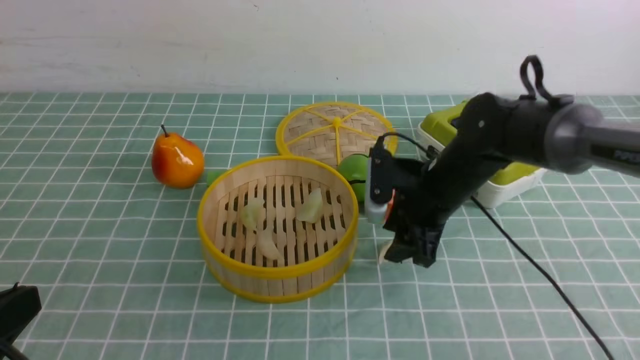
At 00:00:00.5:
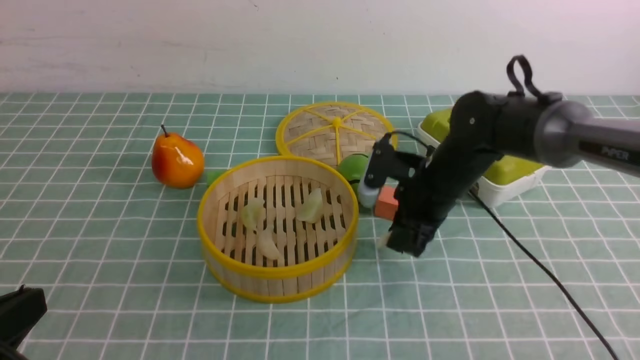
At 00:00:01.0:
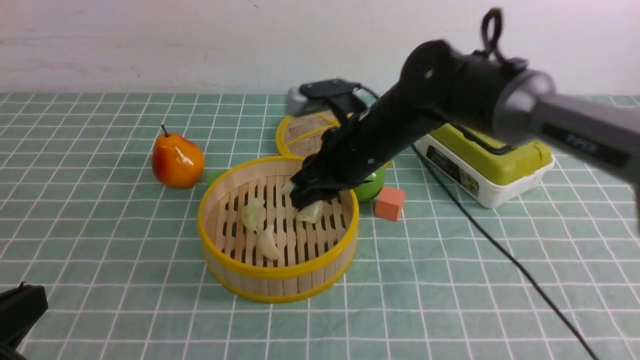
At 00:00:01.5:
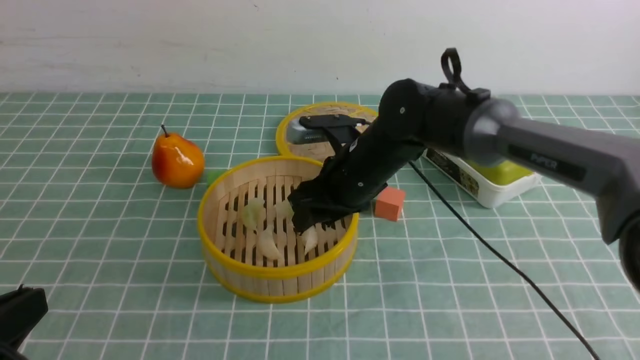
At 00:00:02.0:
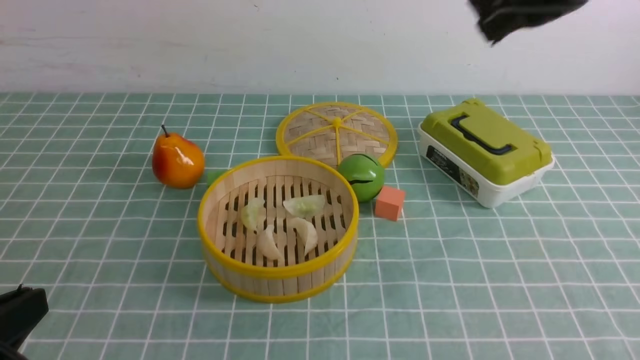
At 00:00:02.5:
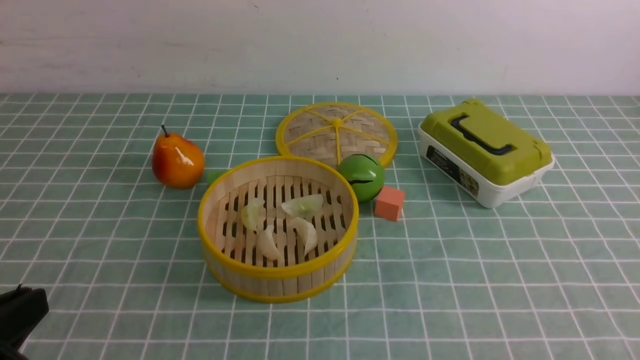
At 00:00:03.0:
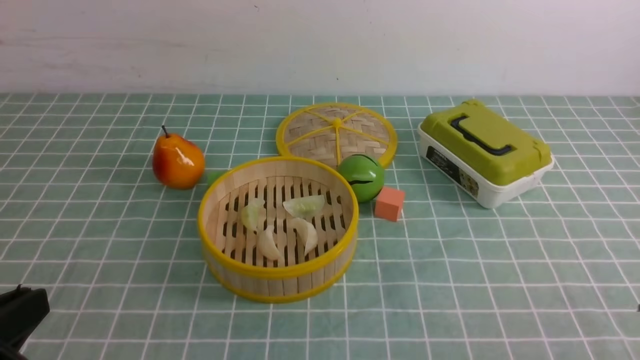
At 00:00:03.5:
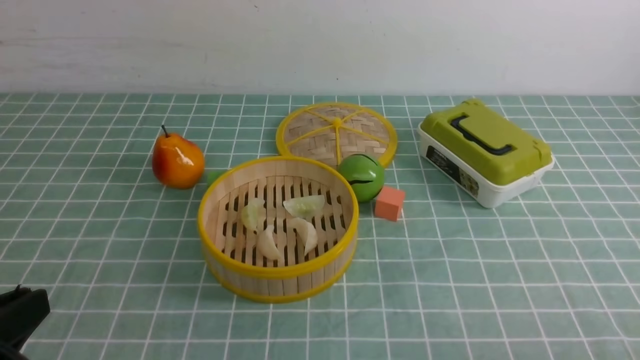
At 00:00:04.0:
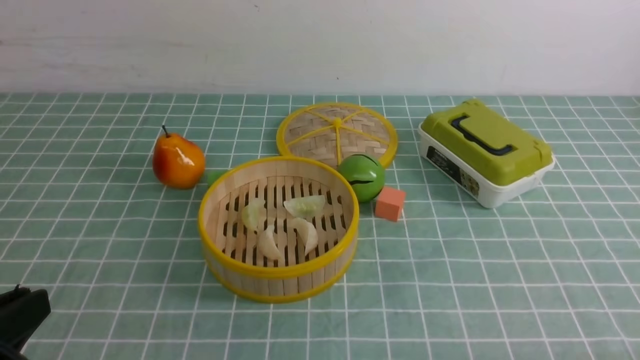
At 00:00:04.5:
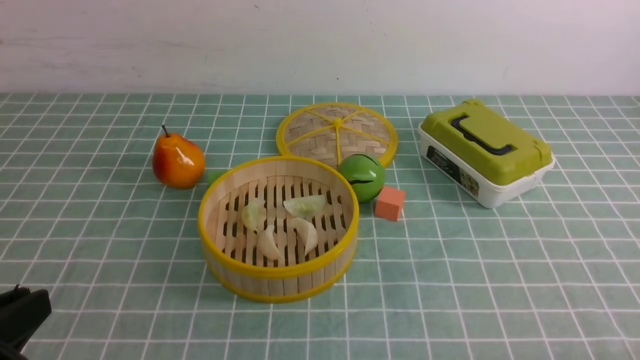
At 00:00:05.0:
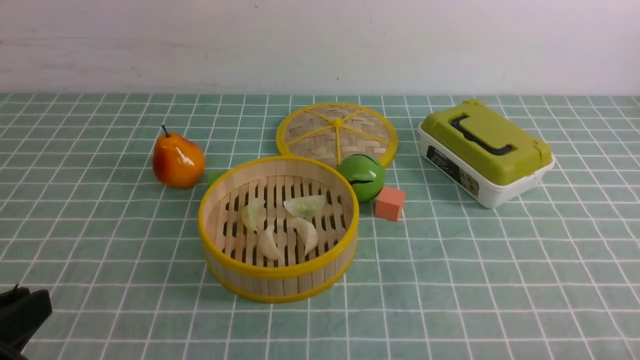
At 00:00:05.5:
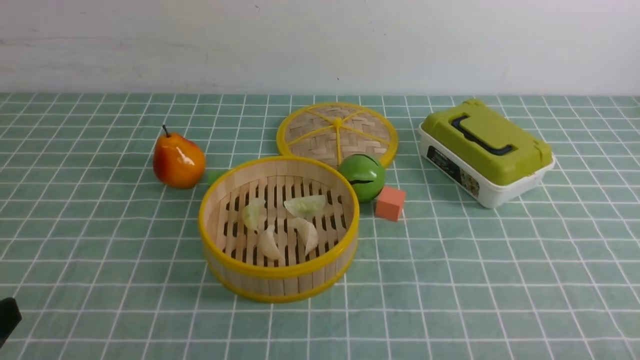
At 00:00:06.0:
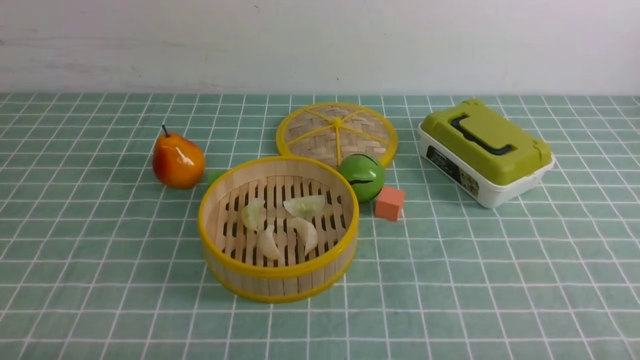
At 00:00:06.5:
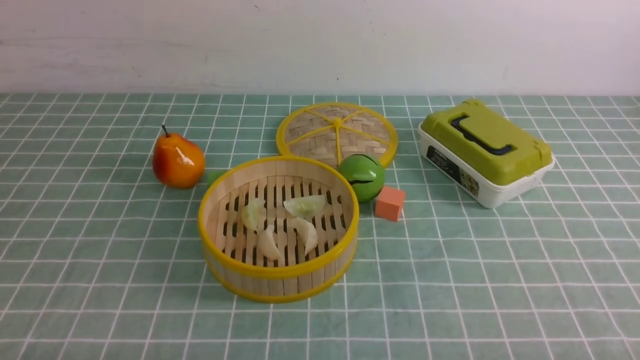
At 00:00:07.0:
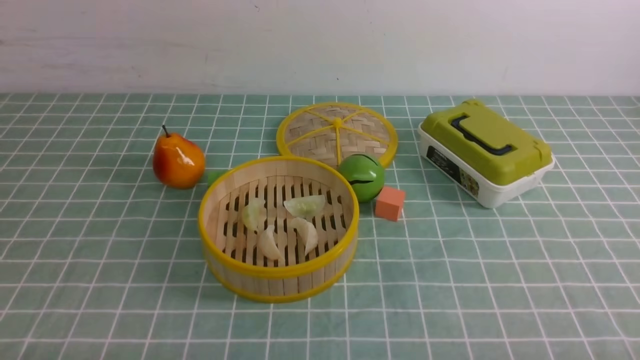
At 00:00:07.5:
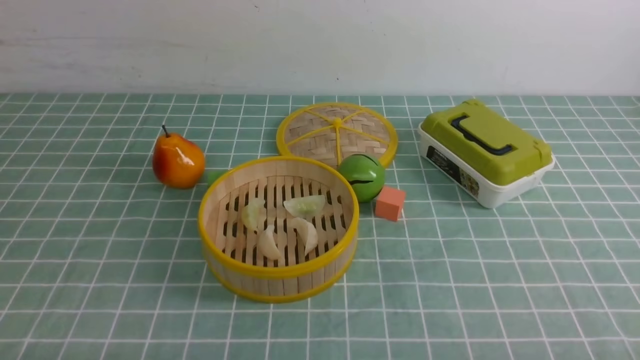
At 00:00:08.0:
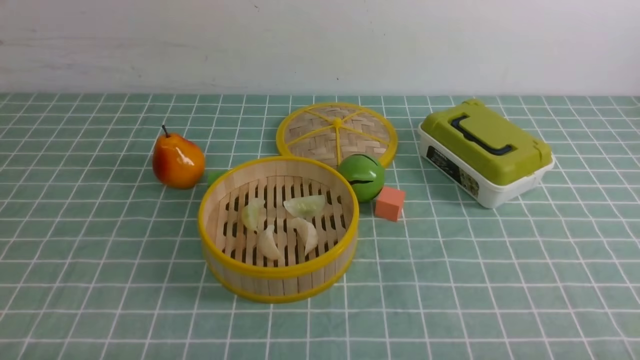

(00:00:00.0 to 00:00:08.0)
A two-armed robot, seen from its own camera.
Task of the whole recording: put the dumplings into the steamer on the table with the blue tablecloth.
Step, 00:00:00.5 - 00:00:01.5: use the right arm to put the dumpling into the steamer.
00:00:00.0 - 00:00:02.0: The right gripper travels upward by approximately 20 cm, and closes its fingers.
00:00:02.0 - 00:00:04.0: The right gripper is displaced backward, downward and to the right by roughly 40 cm.
00:00:04.0 - 00:00:06.0: The left gripper travels downward by about 10 cm.

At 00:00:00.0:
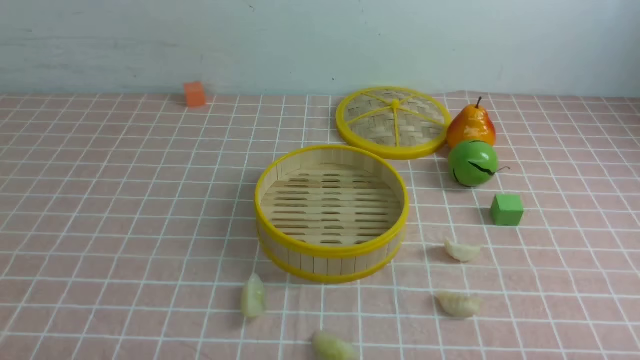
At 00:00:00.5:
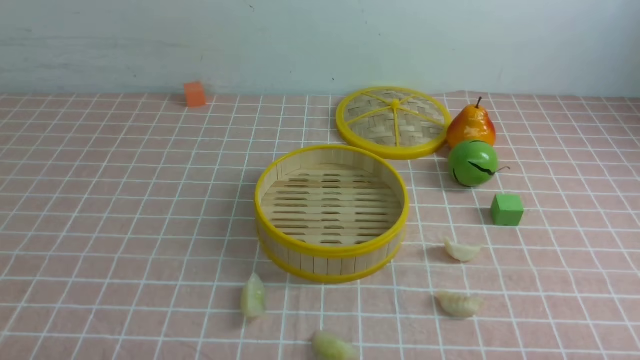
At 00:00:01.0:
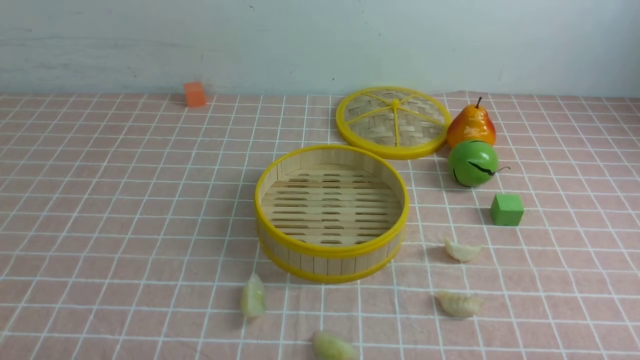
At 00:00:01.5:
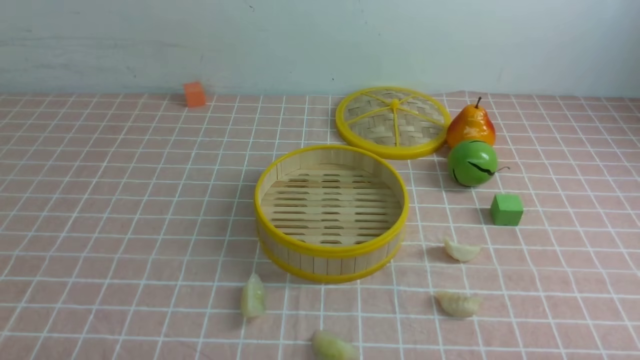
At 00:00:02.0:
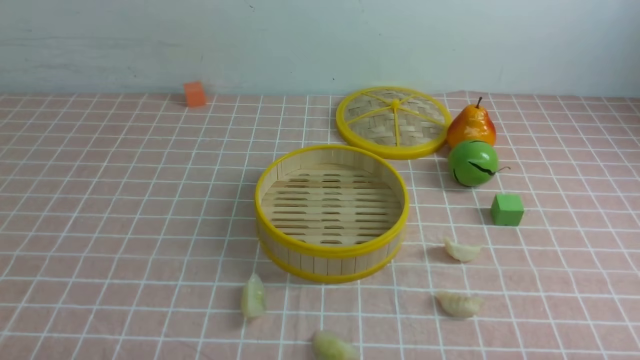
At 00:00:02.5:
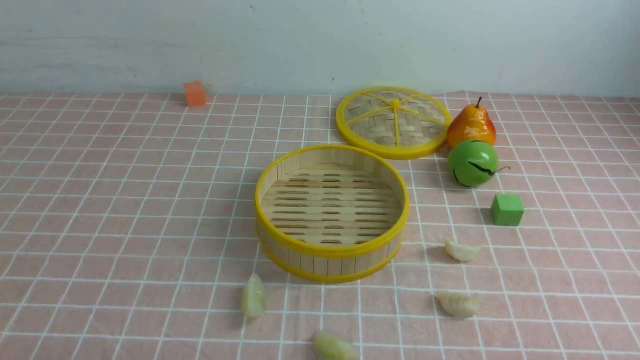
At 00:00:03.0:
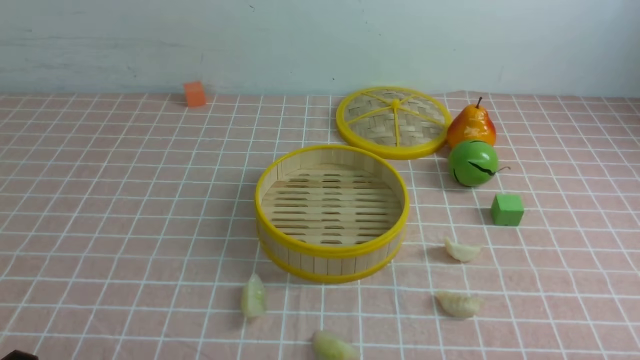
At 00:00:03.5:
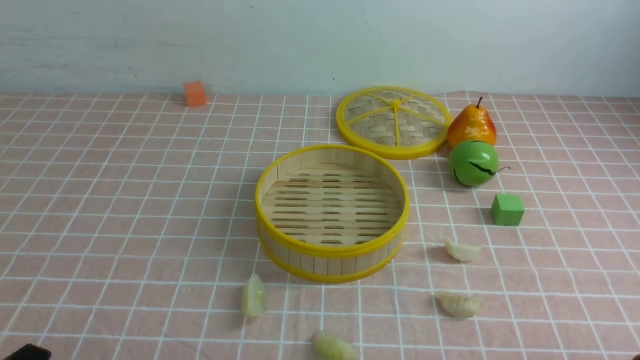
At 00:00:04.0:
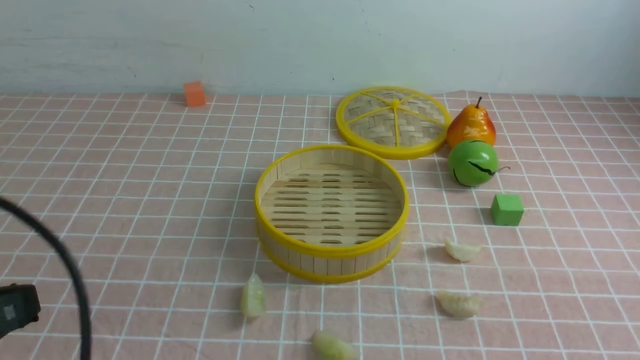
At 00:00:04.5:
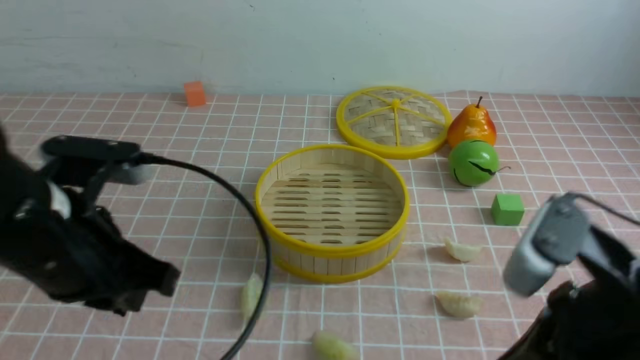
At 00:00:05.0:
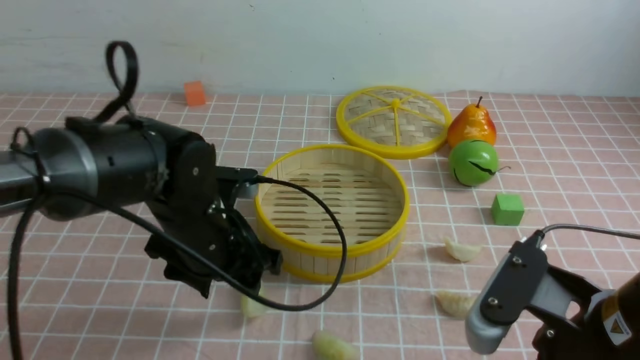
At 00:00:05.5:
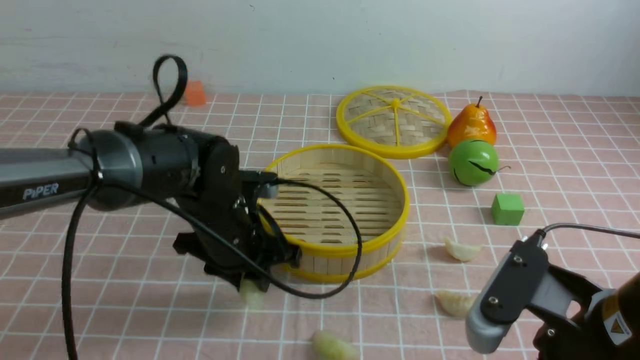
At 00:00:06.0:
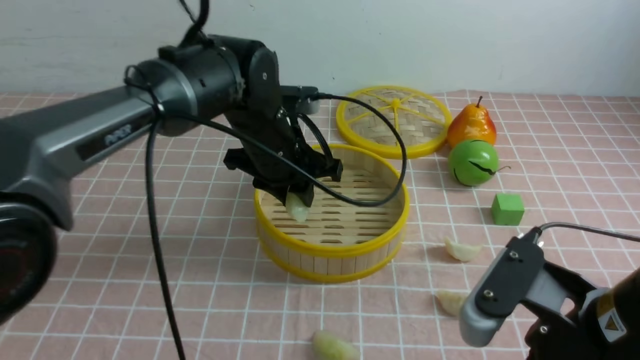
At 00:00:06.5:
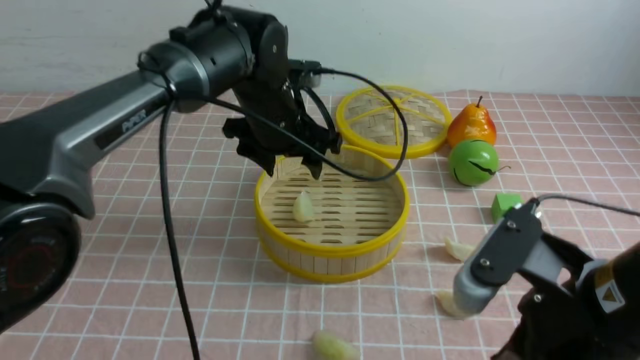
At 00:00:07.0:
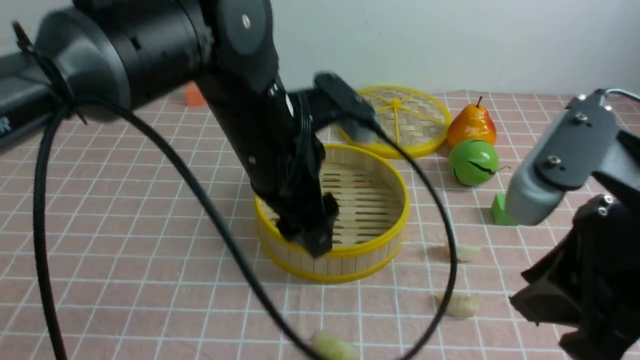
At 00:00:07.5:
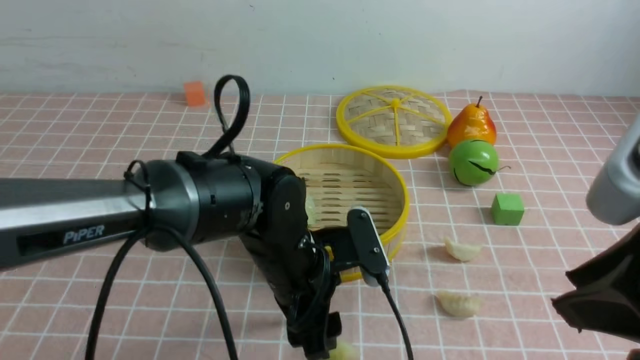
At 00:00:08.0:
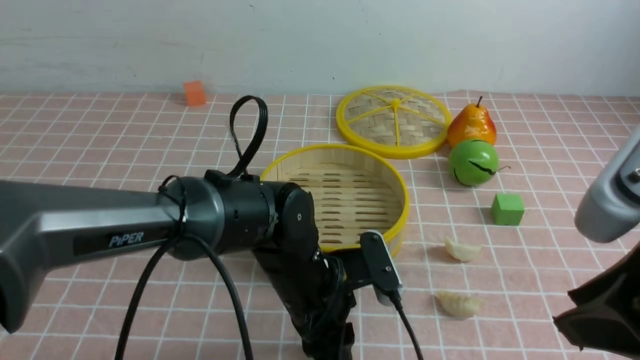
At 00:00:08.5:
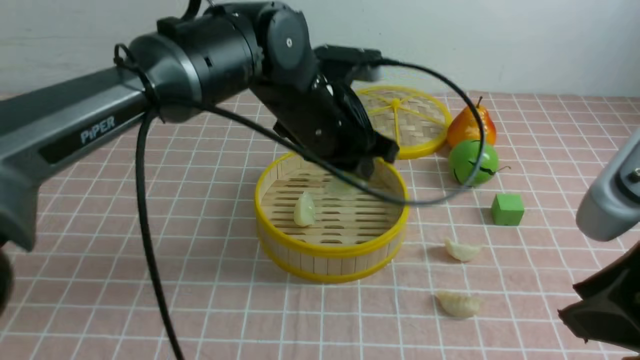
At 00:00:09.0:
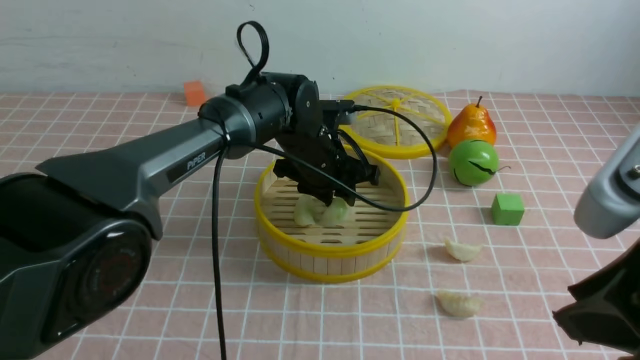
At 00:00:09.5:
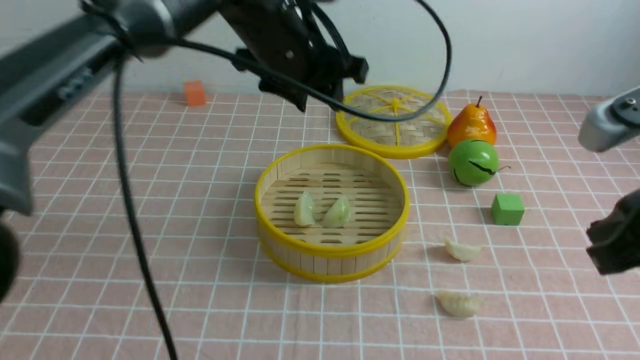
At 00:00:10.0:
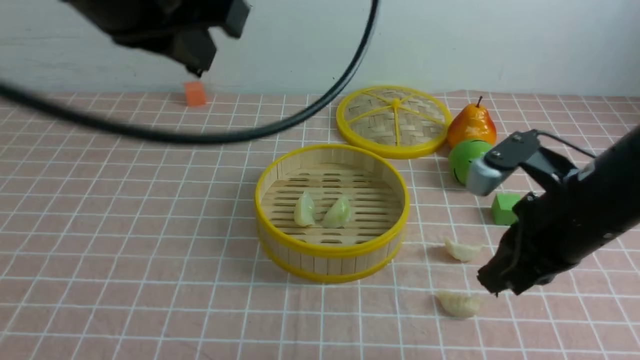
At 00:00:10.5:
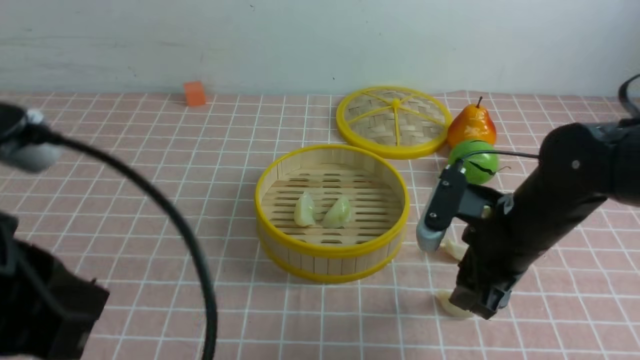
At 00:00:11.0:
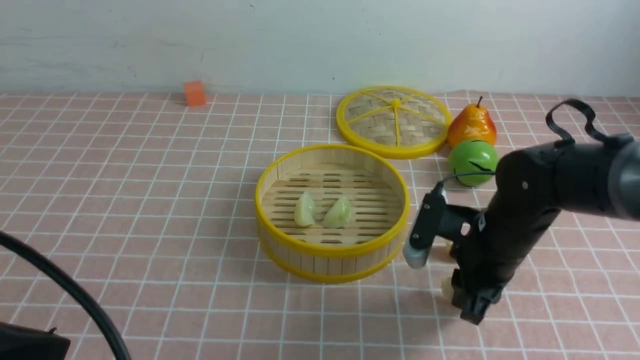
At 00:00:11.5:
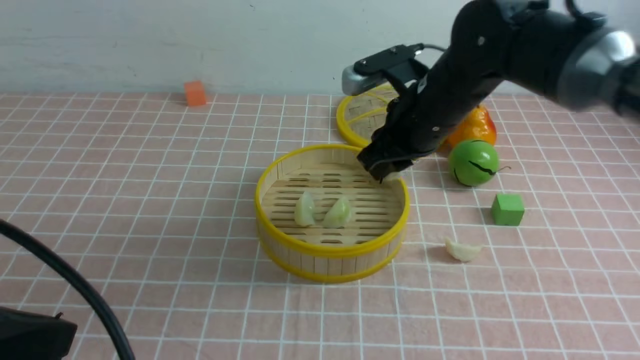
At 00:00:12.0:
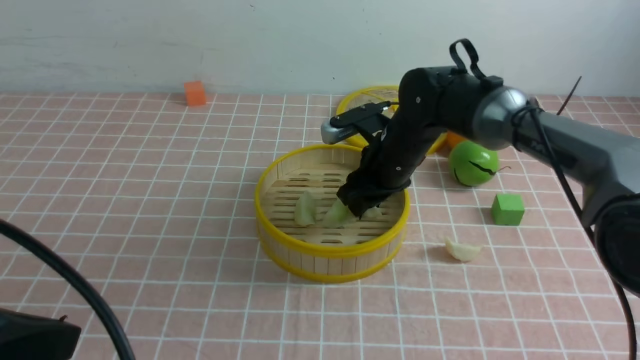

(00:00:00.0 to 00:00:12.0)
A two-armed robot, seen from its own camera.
Task of the whole recording: put the dumplings into the steamer on the table with the pink tablecloth.
Step, 00:00:00.0 - 00:00:05.0: use the left arm to grab a dumpling.
Step, 00:00:05.5 - 00:00:06.0: use the left arm to put the dumpling into the steamer.
Step, 00:00:06.5 - 00:00:08.0: use the left arm to grab a dumpling.
Step, 00:00:08.5 - 00:00:09.0: use the left arm to put the dumpling into the steamer.
Step, 00:00:09.5 - 00:00:10.5: use the right arm to grab a dumpling.
00:00:02.0 - 00:00:04.0: The left gripper moves upward, about 15 cm, and closes up.
00:00:04.0 - 00:00:06.0: The right gripper is displaced to the left and forward by roughly 15 cm. The left gripper moves forward and to the right, approximately 35 cm, and opens.
00:00:06.0 - 00:00:08.0: The left gripper goes approximately 15 cm backward and downward. Meanwhile the right gripper travels upward by some 10 cm, and opens.
00:00:08.0 - 00:00:10.0: The left gripper moves up and down over about 30 cm, changing direction 2 times, and closes up. The right gripper heads forward and downward, covering roughly 15 cm, and closes its fingers.
00:00:10.0 - 00:00:12.0: The right gripper travels forward, to the left and downward by some 25 cm, and opens its fingers. Meanwhile the left gripper moves backward, downward and to the left, roughly 25 cm.
